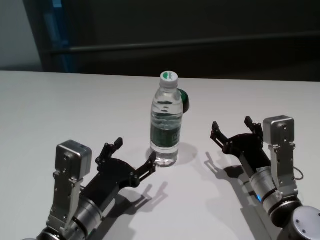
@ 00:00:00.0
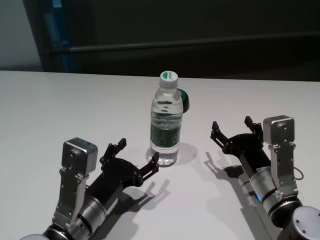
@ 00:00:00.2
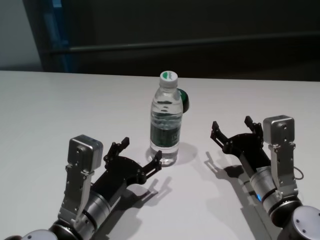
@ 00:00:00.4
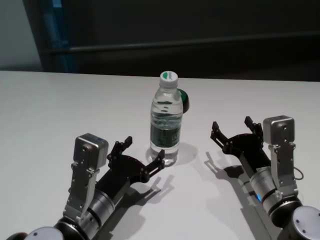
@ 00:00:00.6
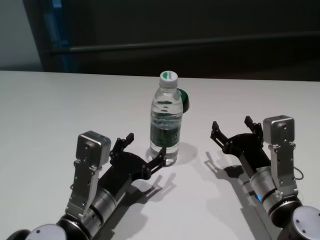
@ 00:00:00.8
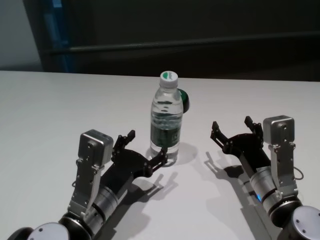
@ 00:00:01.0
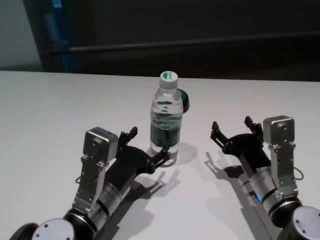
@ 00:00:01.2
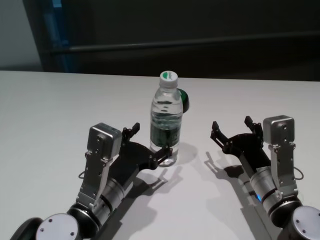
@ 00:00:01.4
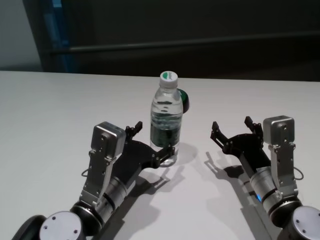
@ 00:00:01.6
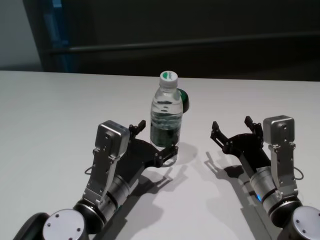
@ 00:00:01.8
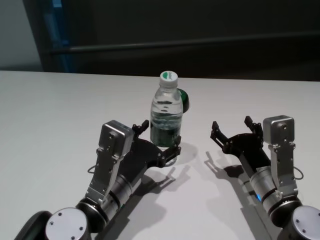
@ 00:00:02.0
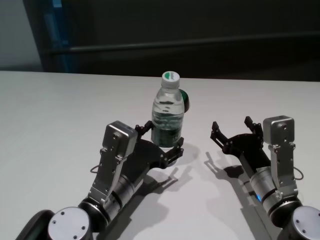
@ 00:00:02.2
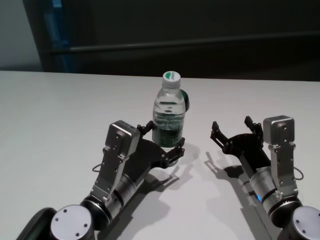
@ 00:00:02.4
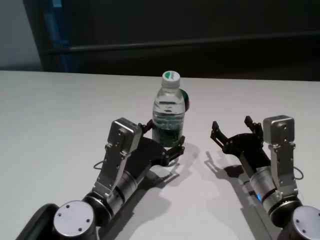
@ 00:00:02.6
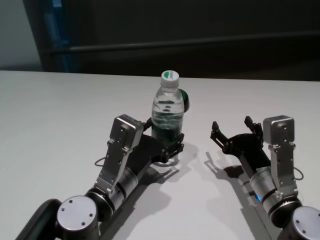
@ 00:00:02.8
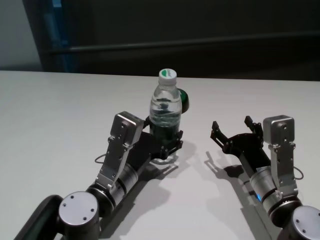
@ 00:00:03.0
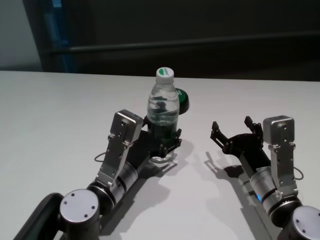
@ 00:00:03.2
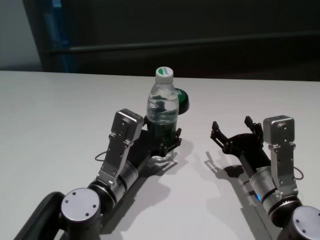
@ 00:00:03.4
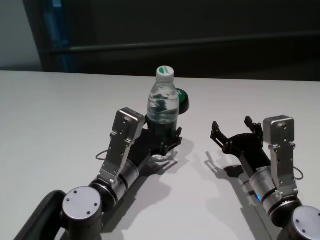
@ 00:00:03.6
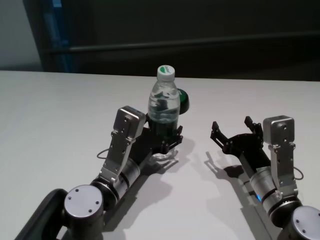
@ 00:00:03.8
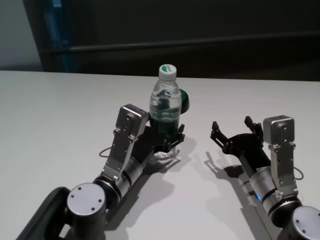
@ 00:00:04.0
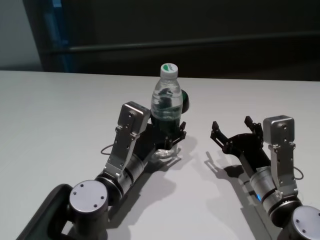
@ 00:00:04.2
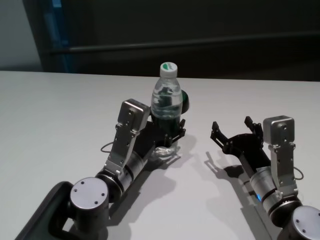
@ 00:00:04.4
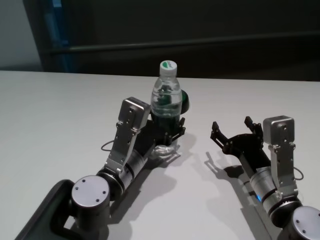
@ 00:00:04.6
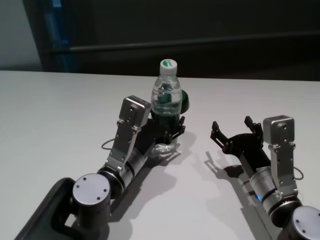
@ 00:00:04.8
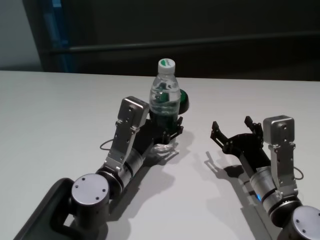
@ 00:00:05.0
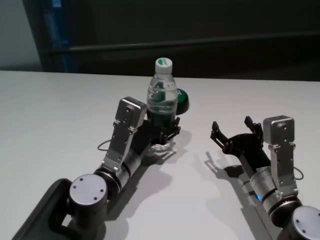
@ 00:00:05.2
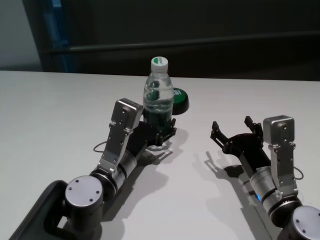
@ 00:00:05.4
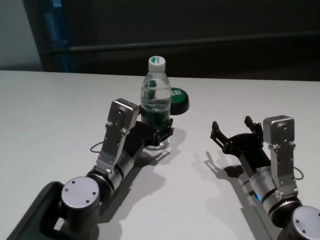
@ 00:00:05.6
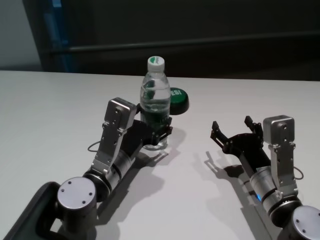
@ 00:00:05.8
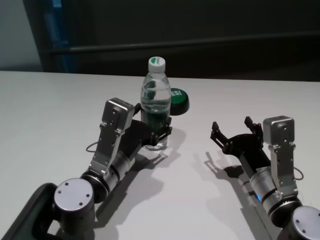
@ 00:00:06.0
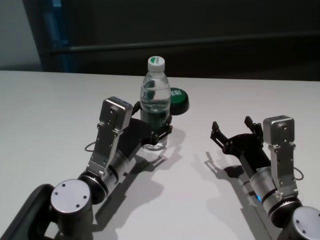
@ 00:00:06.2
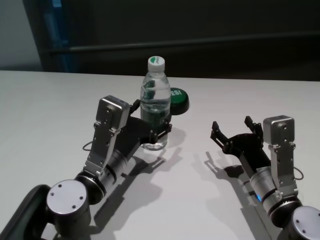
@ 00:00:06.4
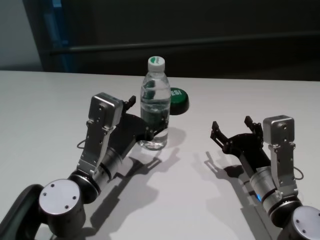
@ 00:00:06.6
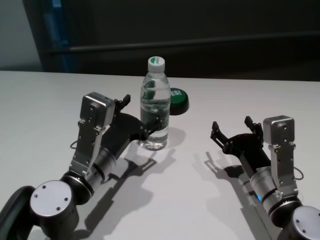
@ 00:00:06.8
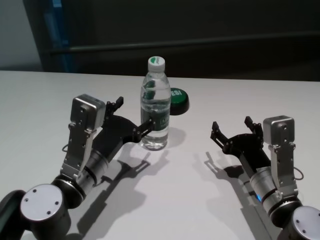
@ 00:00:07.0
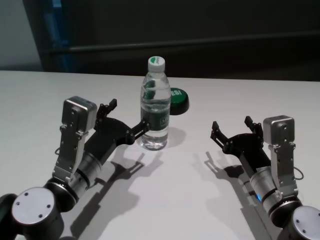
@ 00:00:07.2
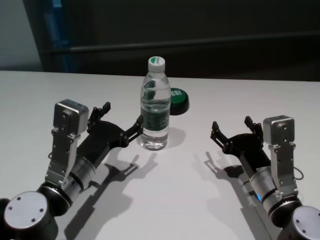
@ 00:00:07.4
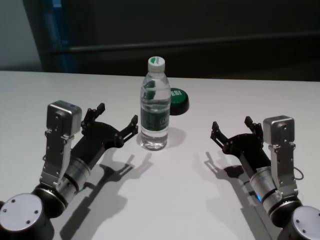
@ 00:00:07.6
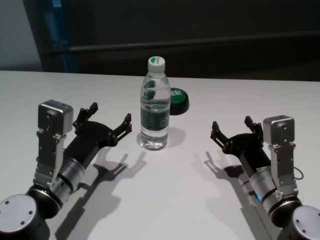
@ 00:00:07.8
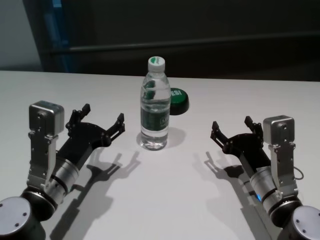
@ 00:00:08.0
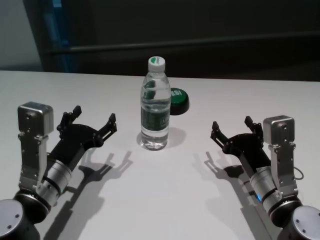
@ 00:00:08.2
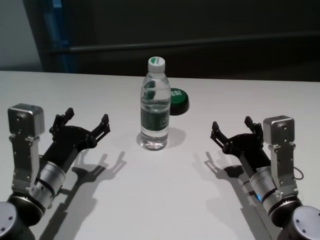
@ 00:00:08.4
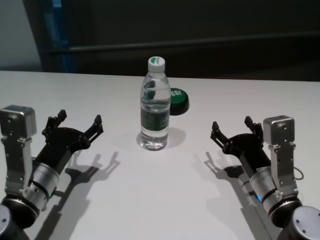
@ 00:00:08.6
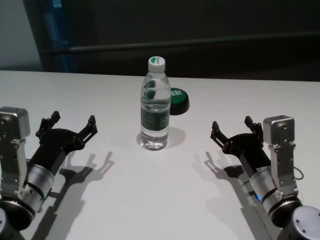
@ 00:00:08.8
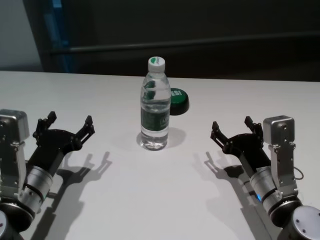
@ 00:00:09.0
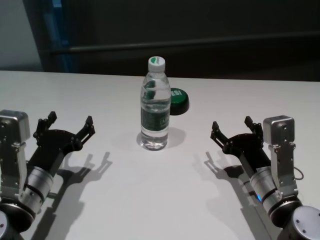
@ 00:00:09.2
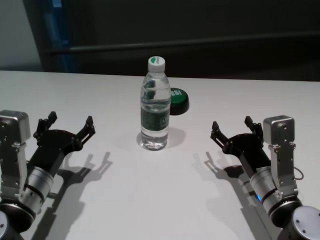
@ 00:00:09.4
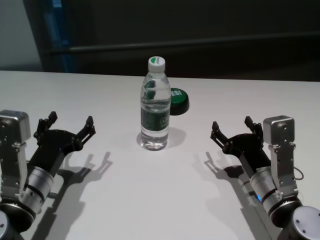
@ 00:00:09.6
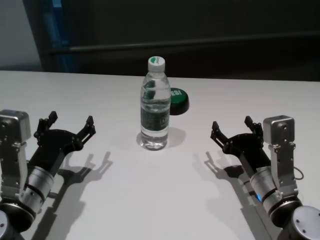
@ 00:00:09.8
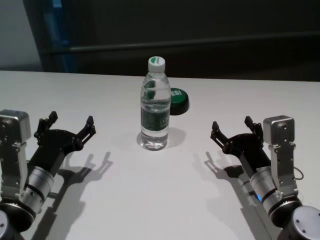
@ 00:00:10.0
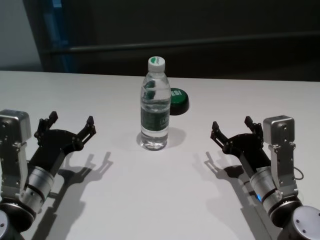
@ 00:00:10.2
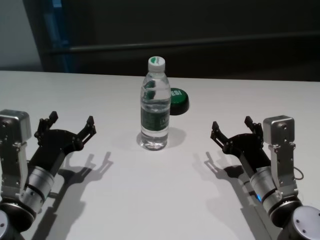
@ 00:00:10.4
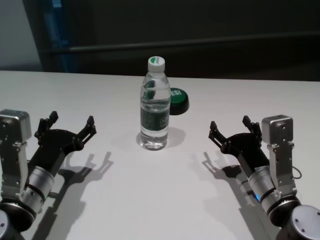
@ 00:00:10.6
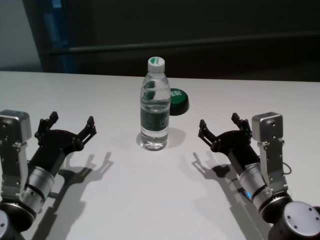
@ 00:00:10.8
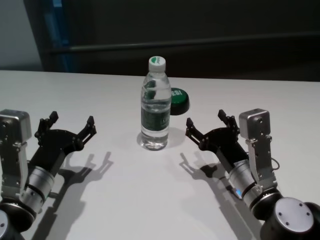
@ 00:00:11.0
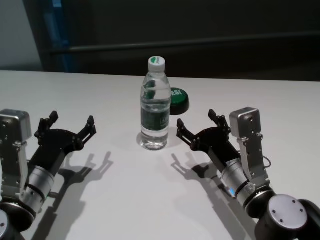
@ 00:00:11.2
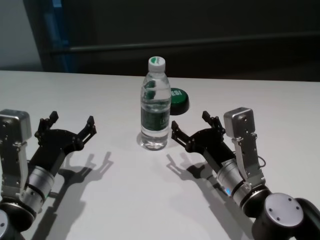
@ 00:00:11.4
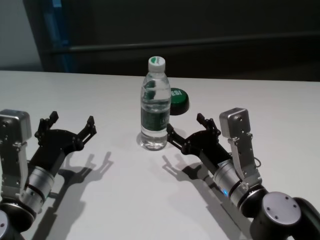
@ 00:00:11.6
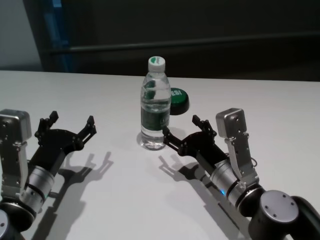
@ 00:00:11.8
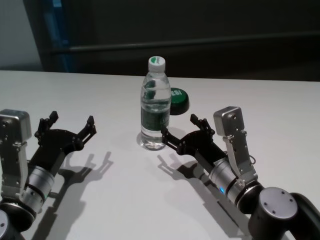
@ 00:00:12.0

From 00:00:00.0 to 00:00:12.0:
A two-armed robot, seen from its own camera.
Task of the whole recording: return to a safe position after touching an obstacle with your arm on the white table.
Step, from 00:00:00.0 to 00:00:07.2: Touch the bottle with left gripper.

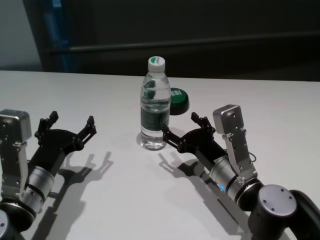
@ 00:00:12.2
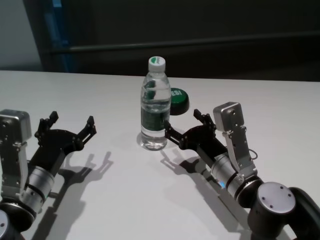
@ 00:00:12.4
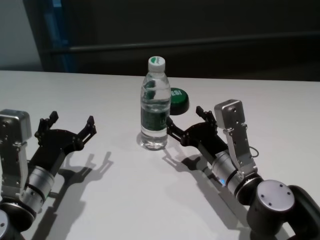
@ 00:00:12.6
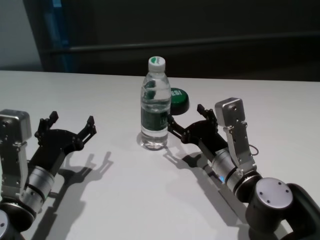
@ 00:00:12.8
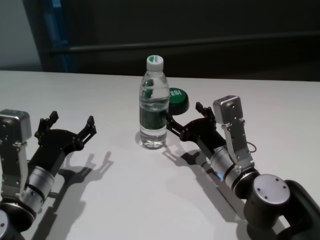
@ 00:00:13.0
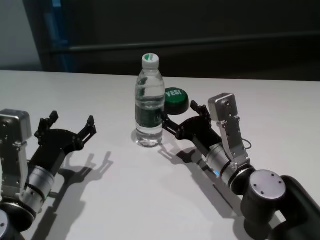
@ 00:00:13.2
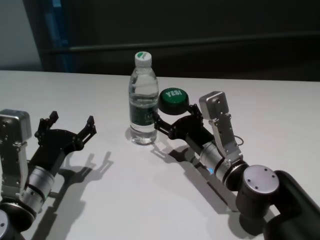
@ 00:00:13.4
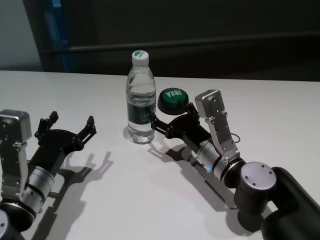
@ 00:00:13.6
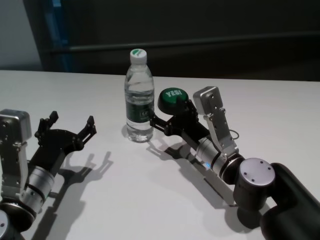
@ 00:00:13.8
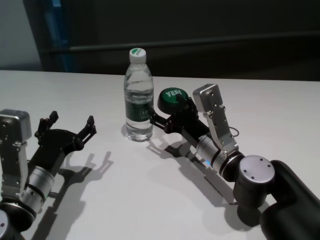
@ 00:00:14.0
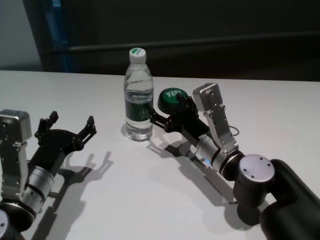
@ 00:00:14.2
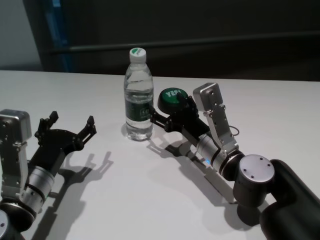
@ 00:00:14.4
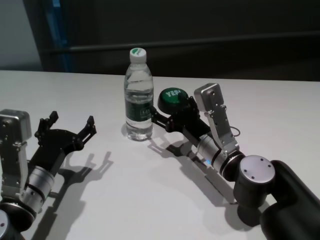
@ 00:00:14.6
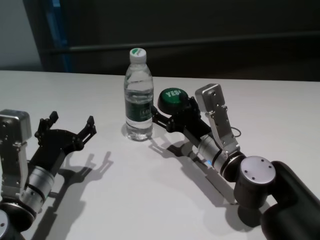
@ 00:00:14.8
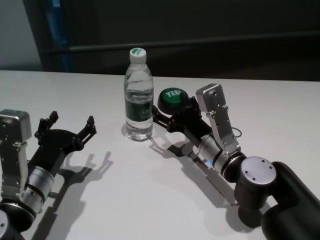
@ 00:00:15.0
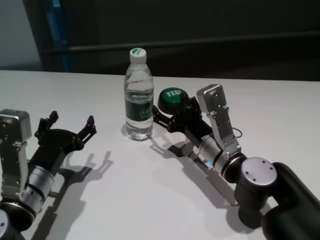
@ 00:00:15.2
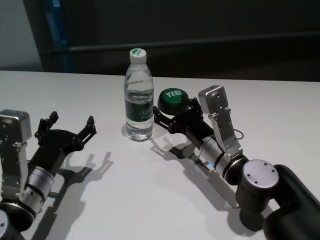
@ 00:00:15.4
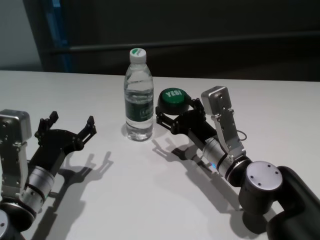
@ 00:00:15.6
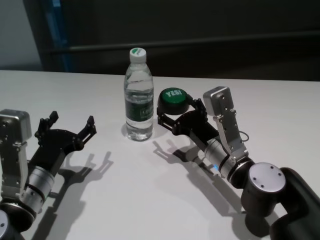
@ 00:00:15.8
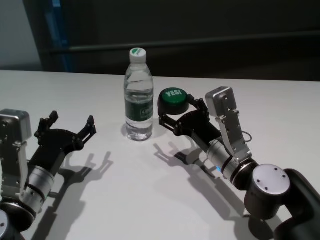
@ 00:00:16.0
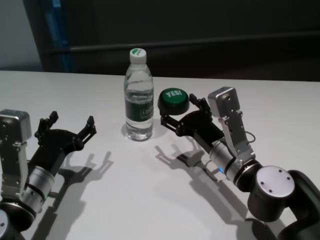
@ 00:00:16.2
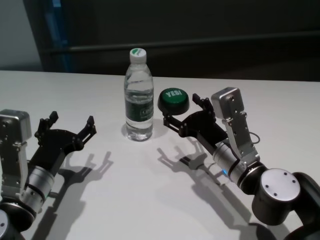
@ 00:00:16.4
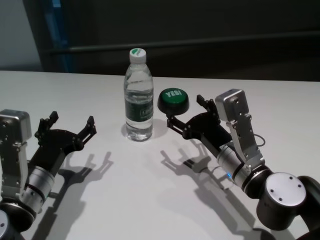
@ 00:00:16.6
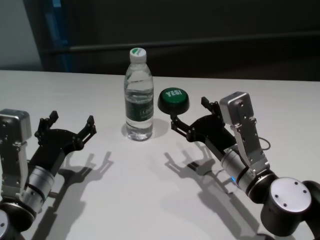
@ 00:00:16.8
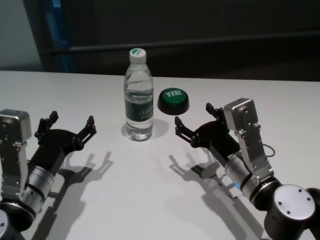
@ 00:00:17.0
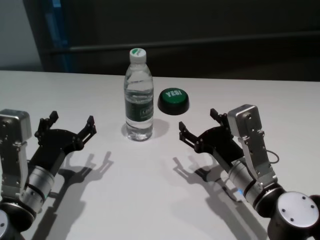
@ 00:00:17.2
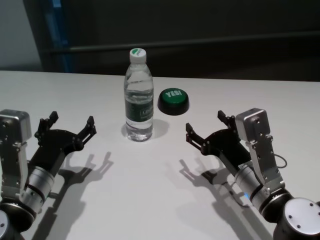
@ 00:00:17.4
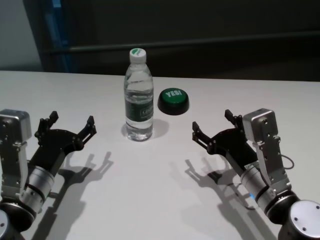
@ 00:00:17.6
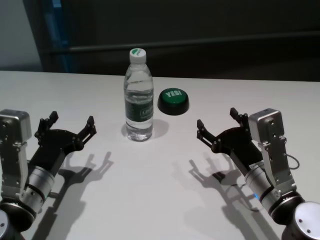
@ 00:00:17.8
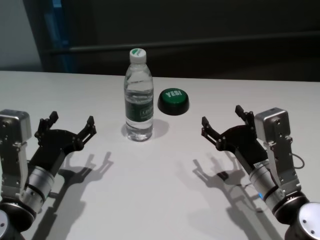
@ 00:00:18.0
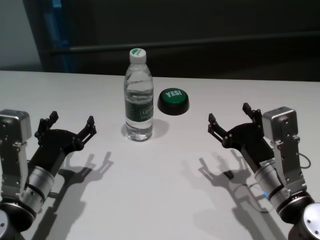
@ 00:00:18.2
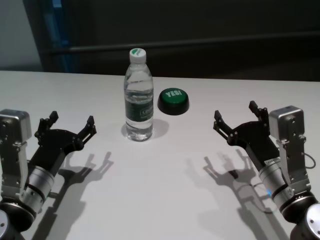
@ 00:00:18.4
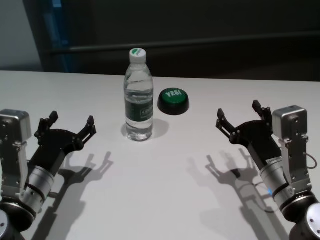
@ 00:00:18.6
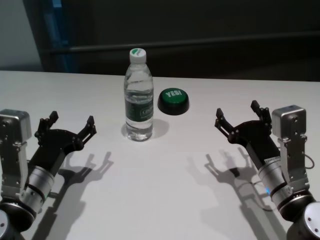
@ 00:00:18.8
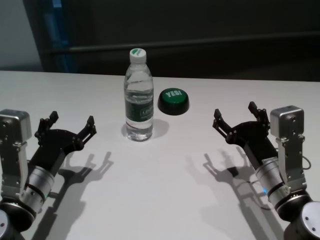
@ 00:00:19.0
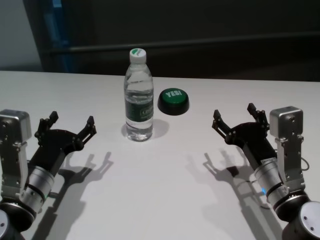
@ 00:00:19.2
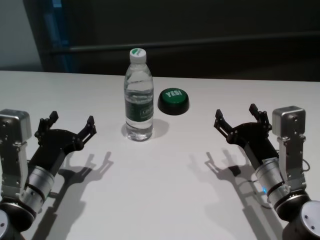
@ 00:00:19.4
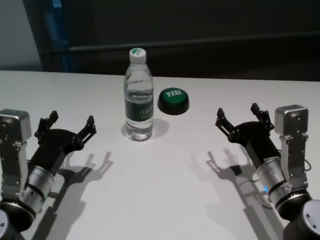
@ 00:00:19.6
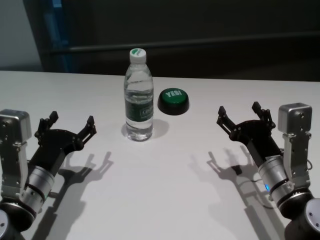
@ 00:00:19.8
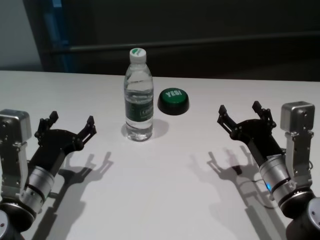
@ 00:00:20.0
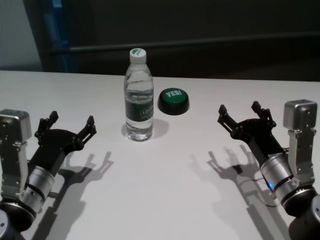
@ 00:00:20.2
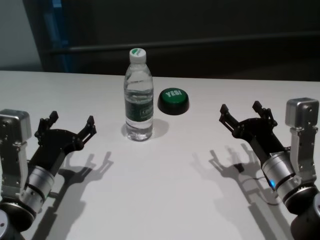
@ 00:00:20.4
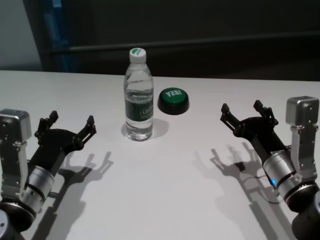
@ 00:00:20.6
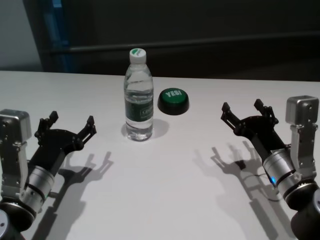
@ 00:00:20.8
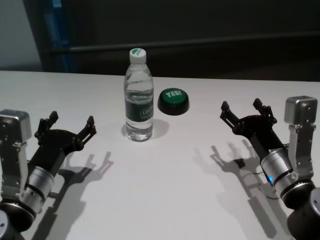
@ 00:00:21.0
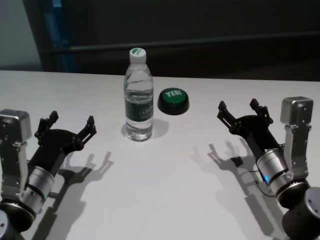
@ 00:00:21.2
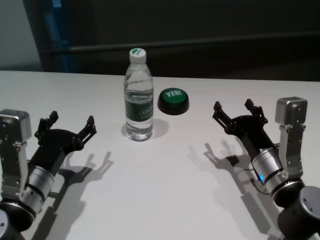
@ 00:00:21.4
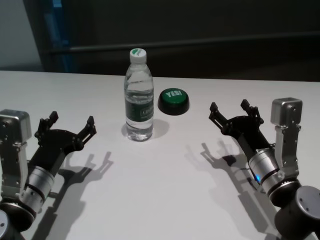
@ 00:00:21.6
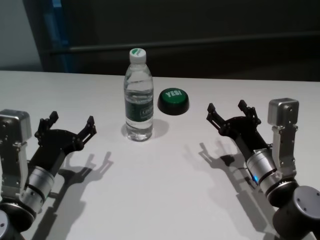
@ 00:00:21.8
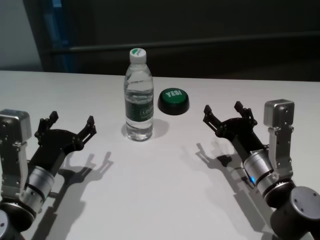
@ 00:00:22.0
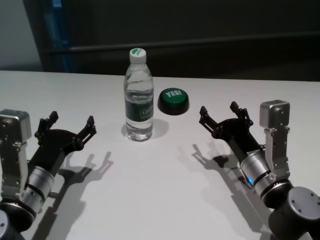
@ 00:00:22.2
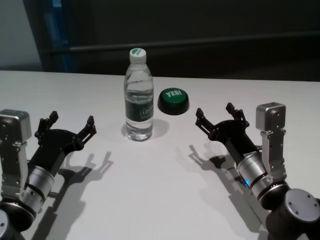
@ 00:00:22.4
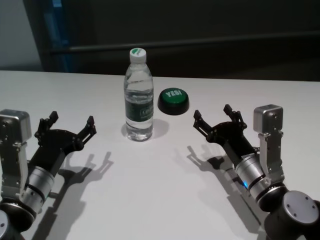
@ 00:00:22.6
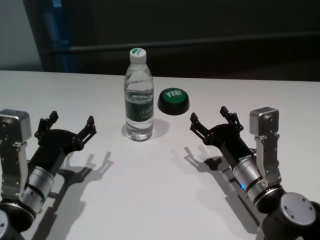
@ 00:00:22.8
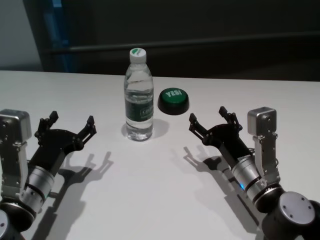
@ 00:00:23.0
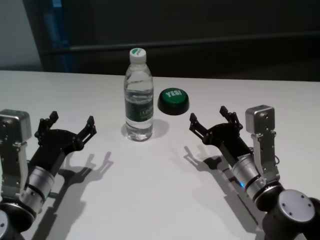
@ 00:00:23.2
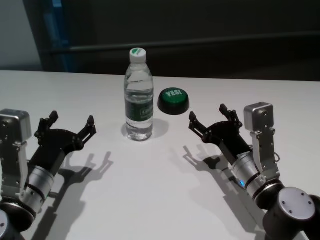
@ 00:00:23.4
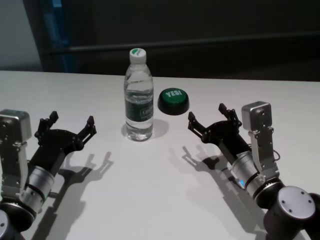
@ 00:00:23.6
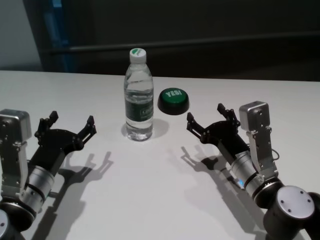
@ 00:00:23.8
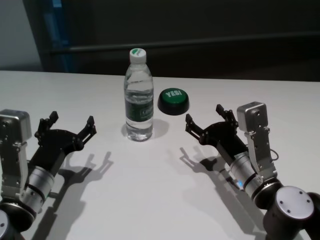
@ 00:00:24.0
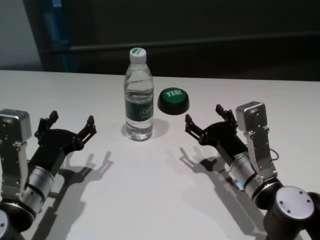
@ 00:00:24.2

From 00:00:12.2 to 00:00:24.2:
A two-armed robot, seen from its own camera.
Task of the whole recording: return to a safe position after touching an obstacle with your arm on the white table.
Step, from 00:00:12.2 to 00:00:15.8: Touch the bottle with right gripper.
